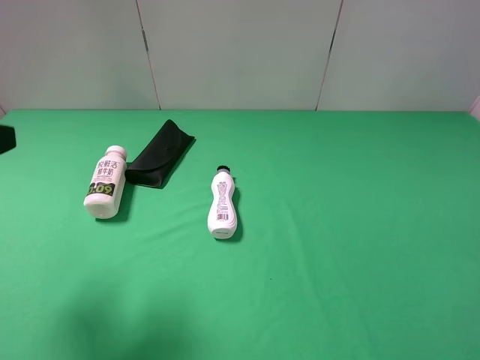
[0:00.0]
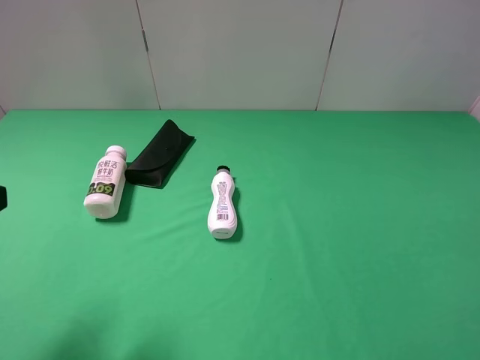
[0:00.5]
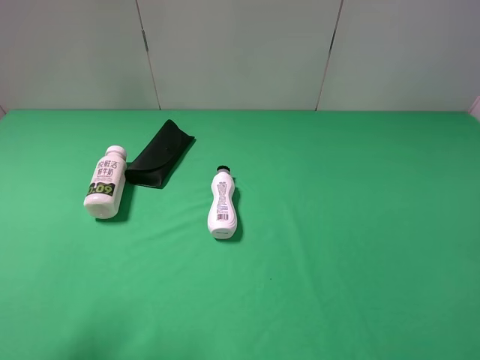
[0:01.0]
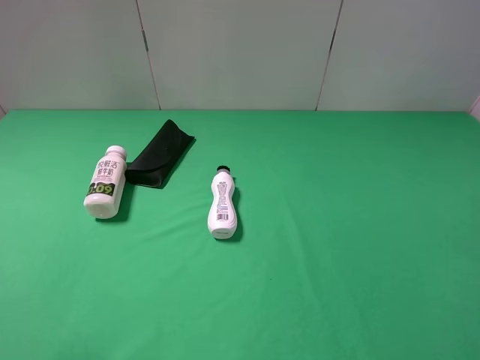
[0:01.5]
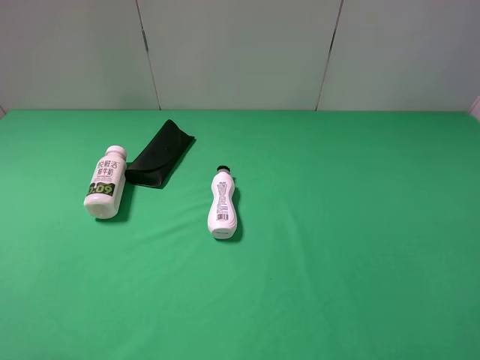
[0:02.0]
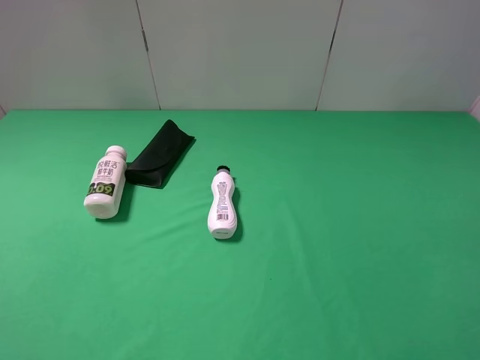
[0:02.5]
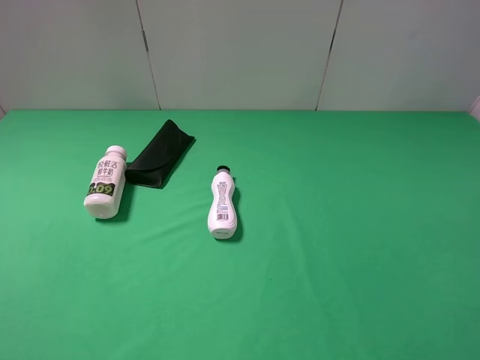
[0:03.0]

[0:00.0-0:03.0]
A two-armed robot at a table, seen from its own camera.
Task of the whole recording: use the right gripper to pick up the item and transfer it from the right gripper to the left gripper.
0:00.0 to 0:01.5: The left gripper shifts some 5 cm backward.
